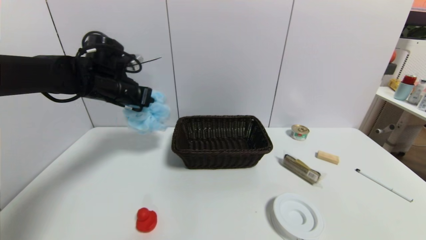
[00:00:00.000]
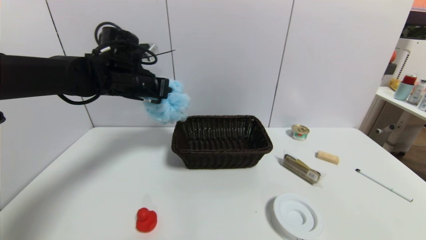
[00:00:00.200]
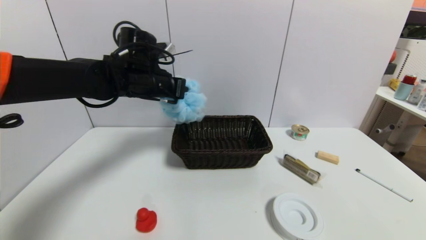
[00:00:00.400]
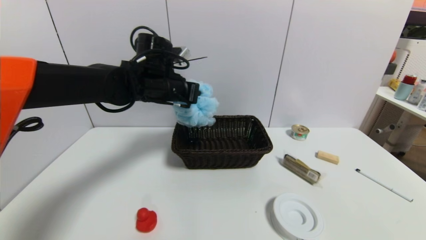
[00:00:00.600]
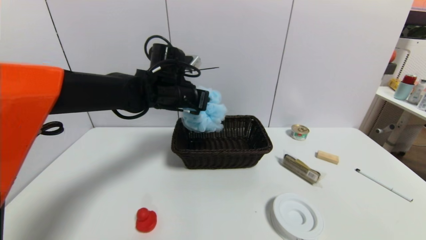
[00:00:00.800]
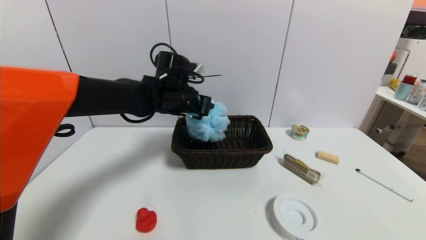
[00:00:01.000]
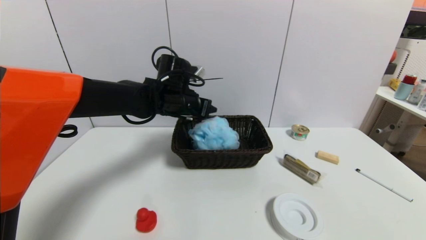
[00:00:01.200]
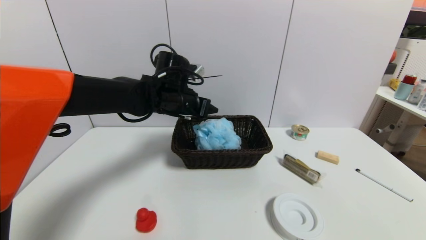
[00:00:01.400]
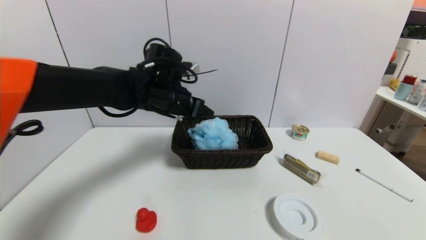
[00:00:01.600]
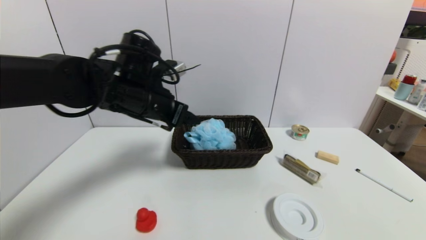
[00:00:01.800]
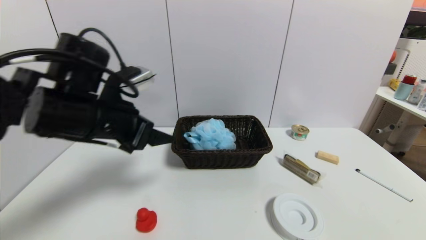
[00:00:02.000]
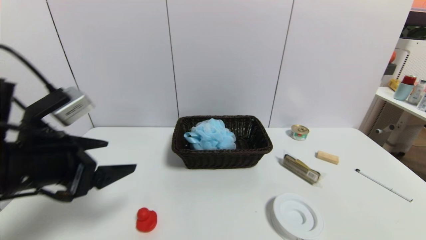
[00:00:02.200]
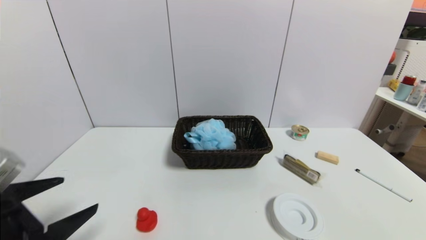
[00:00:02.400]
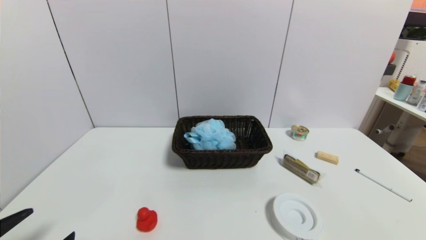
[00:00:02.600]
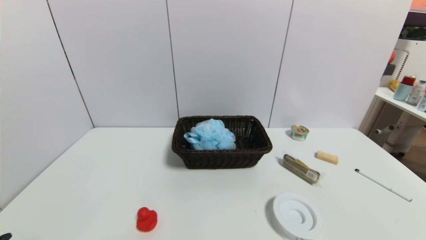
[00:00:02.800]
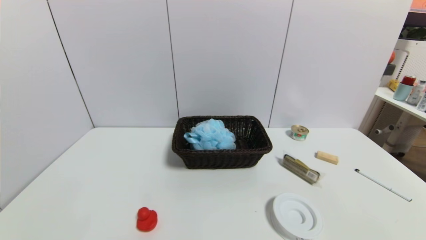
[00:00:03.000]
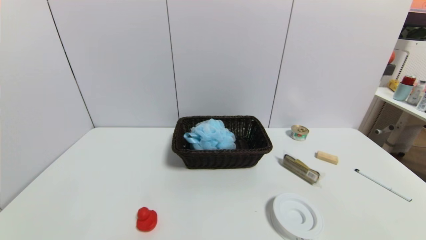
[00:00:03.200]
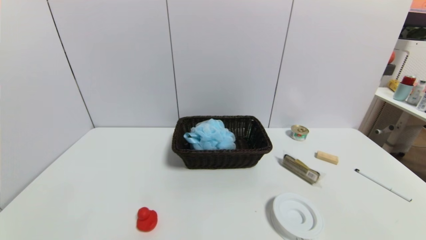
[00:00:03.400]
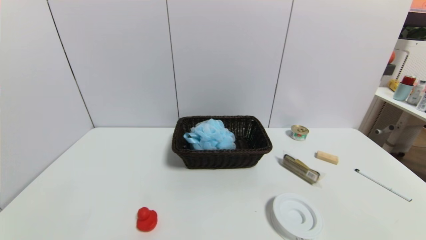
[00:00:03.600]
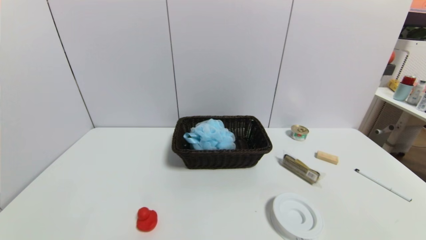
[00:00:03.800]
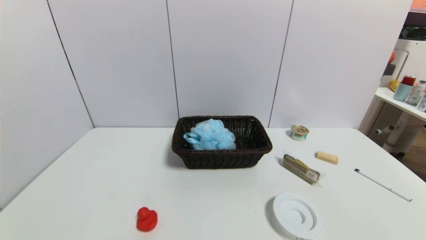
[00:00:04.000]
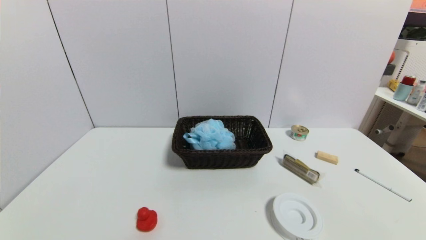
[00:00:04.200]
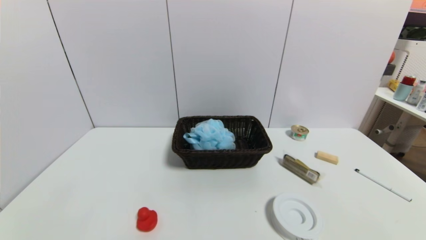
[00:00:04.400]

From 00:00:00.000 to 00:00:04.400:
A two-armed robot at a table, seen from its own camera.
Task of the whole recording: use a gripper to pick the target object and place on the brown basket.
Step, from 00:00:00.000 to 00:00:01.400: Place the shower sphere into the basket with the left gripper.
From 00:00:00.000 to 00:00:01.400: The left gripper heads to the right, covering some 15 cm, and opens up.
From 00:00:01.400 to 00:00:03.000: The left gripper is displaced backward and to the left by roughly 40 cm.

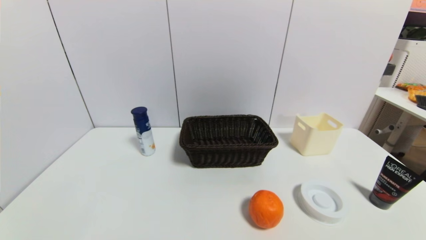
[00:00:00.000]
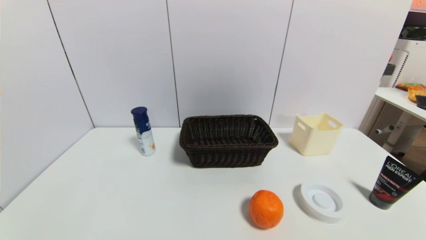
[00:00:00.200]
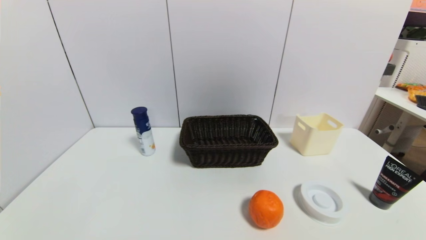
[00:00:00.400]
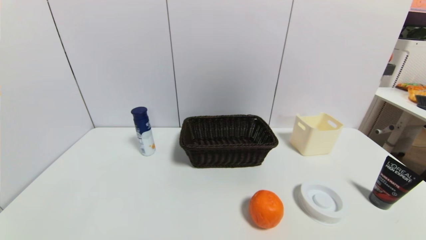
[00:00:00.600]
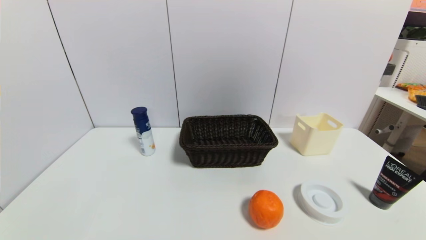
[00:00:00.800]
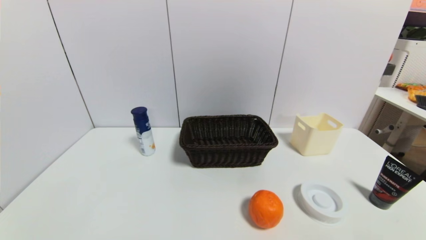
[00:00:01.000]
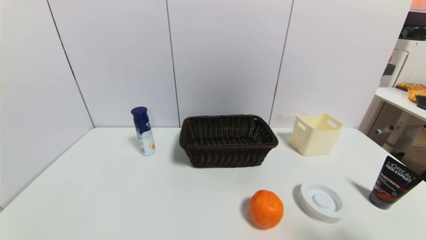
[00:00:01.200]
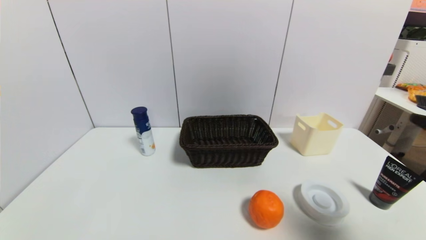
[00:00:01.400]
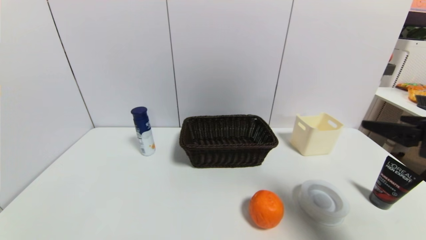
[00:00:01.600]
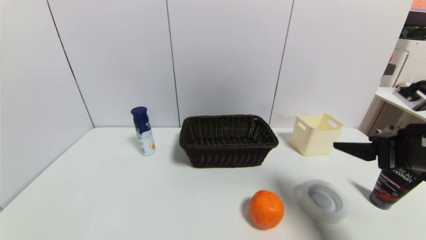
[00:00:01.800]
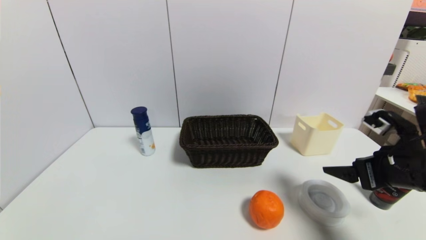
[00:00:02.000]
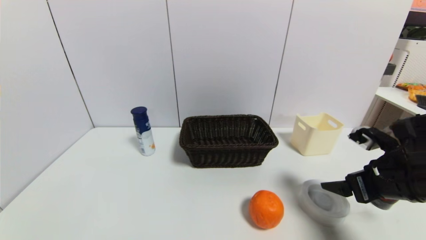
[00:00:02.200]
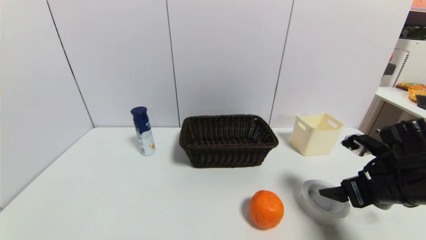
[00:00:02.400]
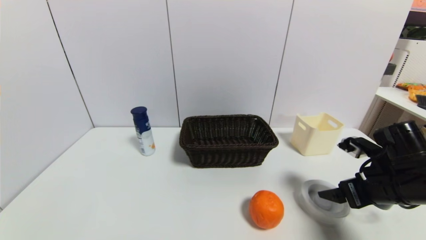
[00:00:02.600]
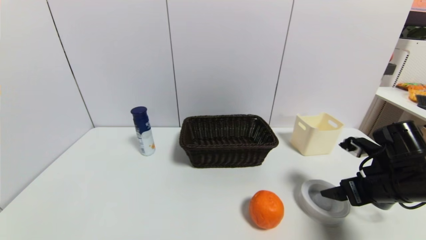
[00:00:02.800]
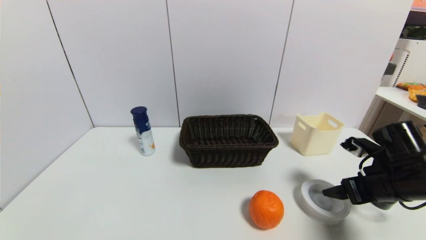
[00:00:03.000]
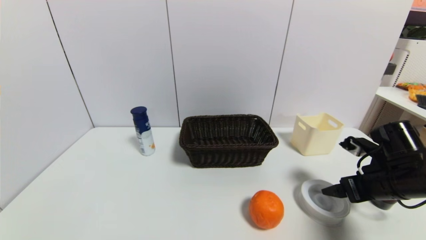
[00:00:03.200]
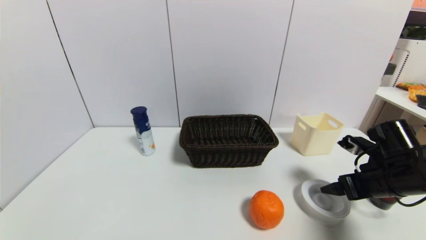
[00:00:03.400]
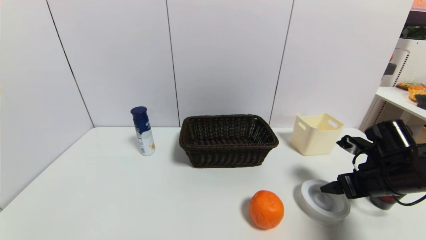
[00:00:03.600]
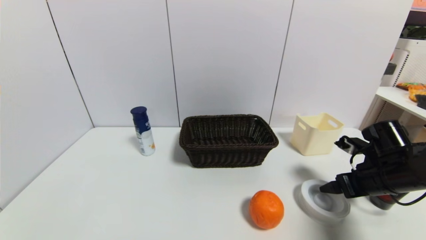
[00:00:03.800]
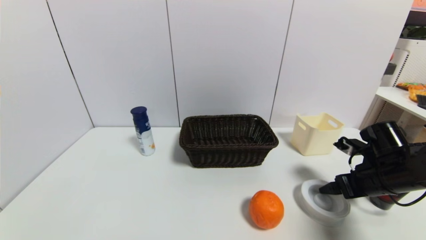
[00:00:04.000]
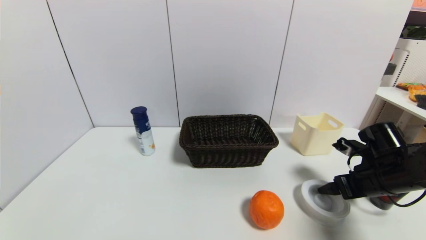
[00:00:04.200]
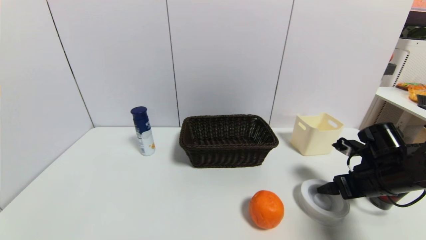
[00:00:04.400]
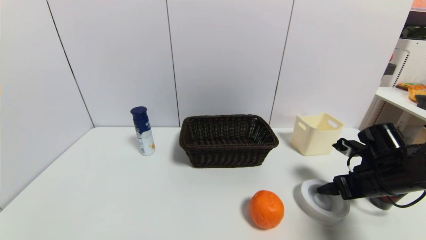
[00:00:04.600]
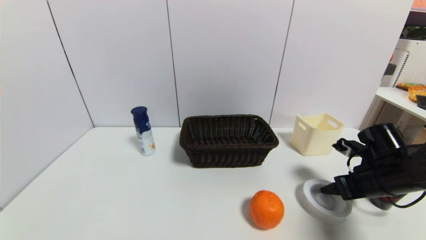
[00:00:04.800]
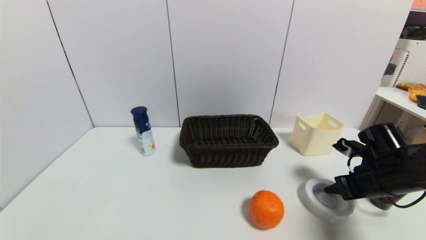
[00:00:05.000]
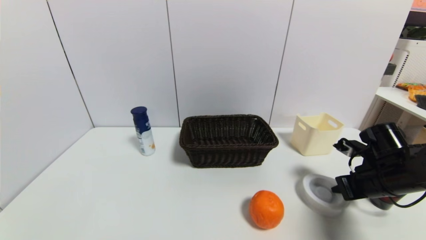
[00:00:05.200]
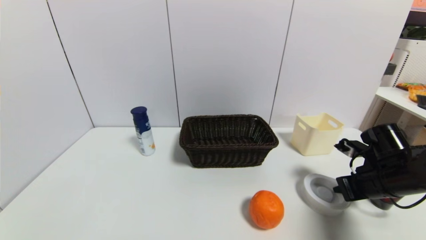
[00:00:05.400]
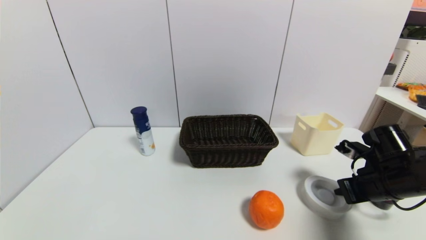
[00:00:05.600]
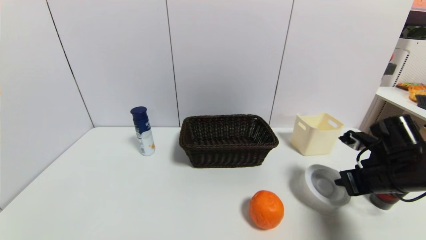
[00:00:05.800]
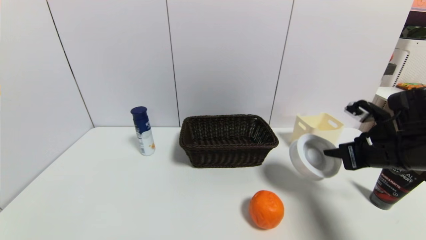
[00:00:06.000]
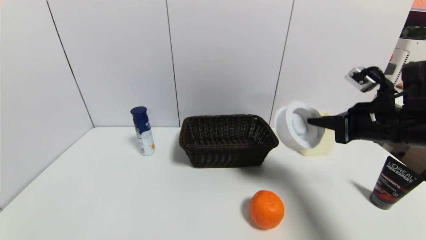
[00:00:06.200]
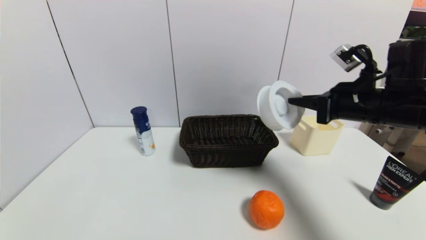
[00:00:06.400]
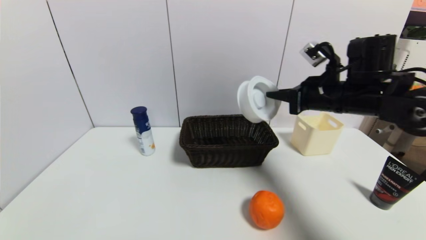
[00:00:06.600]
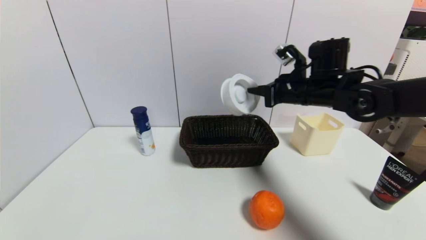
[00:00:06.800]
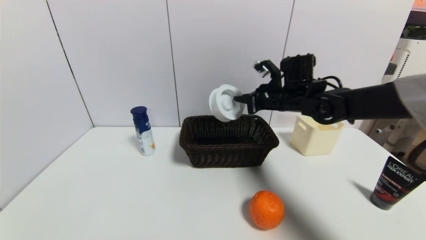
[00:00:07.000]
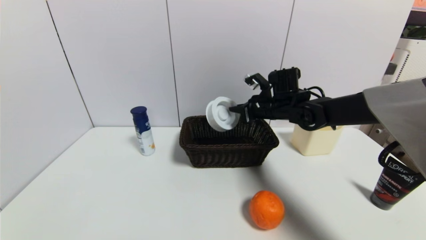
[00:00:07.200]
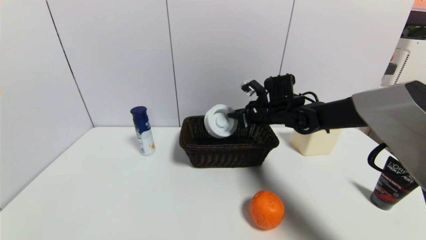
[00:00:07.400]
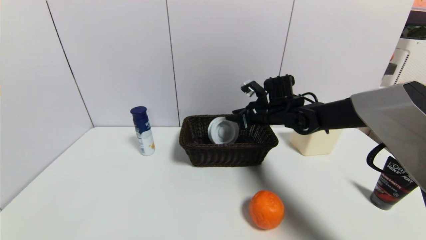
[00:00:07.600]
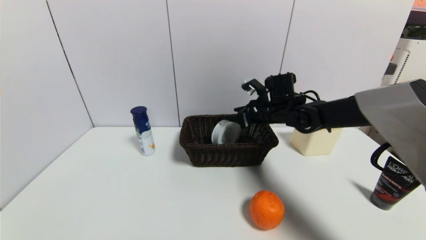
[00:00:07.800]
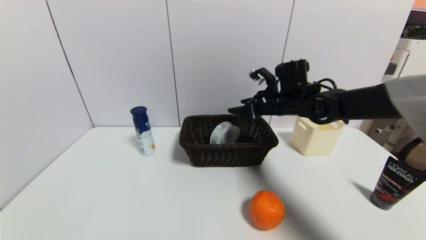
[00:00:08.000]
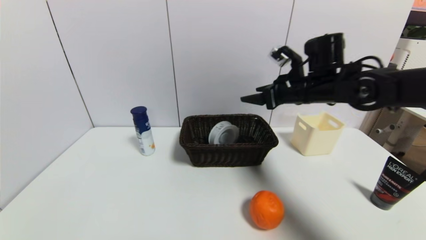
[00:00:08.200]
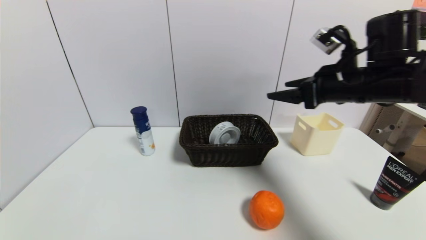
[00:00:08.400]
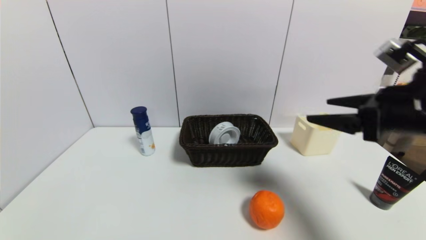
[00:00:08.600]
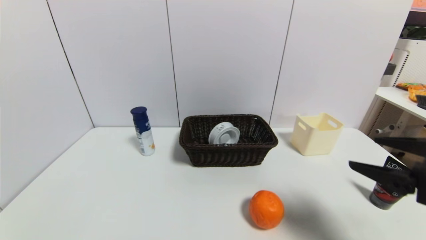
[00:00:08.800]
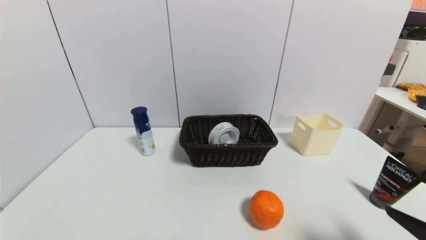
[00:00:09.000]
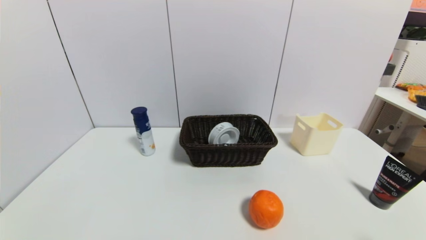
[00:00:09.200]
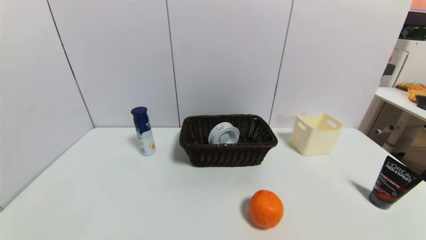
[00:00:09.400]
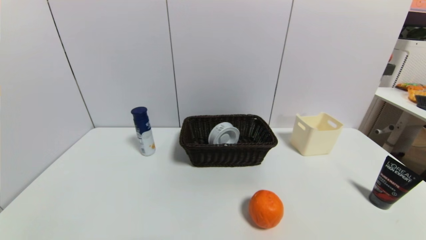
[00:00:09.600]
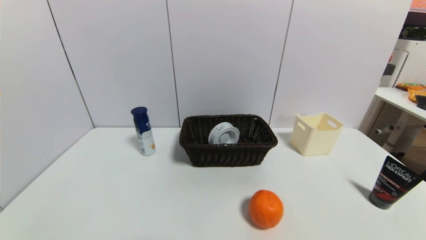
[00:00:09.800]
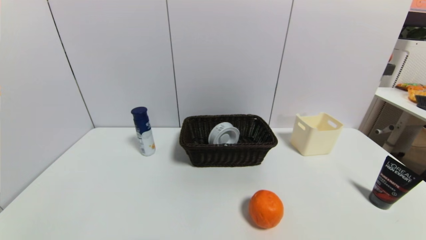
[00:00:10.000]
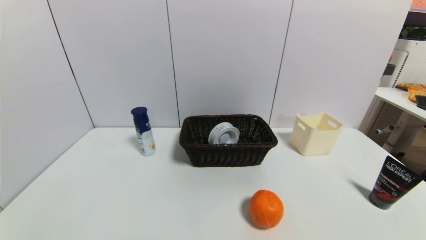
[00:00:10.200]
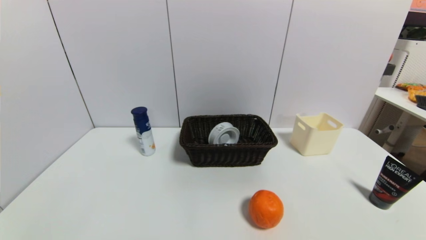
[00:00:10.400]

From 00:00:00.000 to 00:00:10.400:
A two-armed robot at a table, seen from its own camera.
Task of the whole recording: use a gripper to pick the target object and place on the brown basket.
Step, from 00:00:00.000 to 00:00:05.400: Grasp the tape with the right gripper.
Step, from 00:00:05.600 to 00:00:08.000: Place the tape into the basket with the right gripper.
From 00:00:00.000 to 00:00:01.400: The right gripper travels upward and forward by about 25 cm.
From 00:00:01.400 to 00:00:03.000: The right gripper is displaced downward and forward by about 20 cm.
From 00:00:03.000 to 00:00:04.400: There are only small adjustments of the grippers.
From 00:00:04.400 to 00:00:06.000: The right gripper heads upward, covering roughly 10 cm, and closes.
From 00:00:06.000 to 00:00:07.400: The right gripper shifts approximately 25 cm forward and to the left.
From 00:00:07.400 to 00:00:09.000: The right gripper goes some 40 cm backward and to the right, and opens its fingers.
From 00:00:09.000 to 00:00:10.400: The right gripper heads downward and backward, covering some 15 cm.
